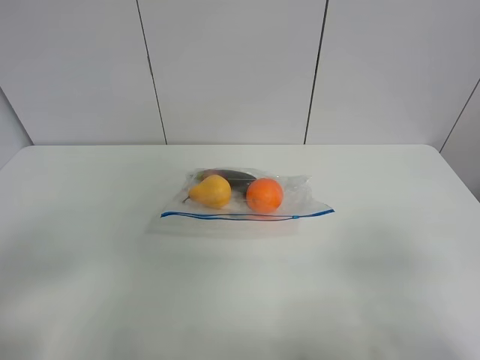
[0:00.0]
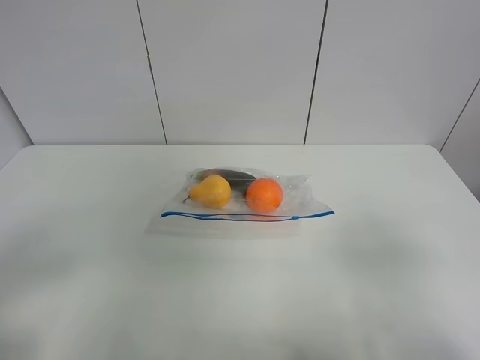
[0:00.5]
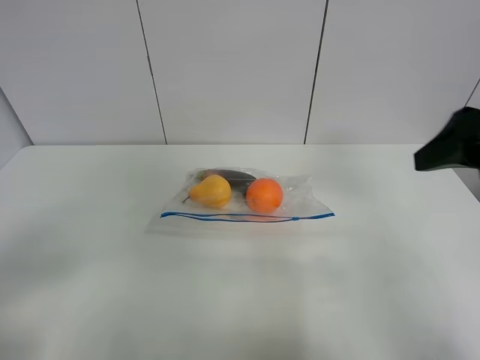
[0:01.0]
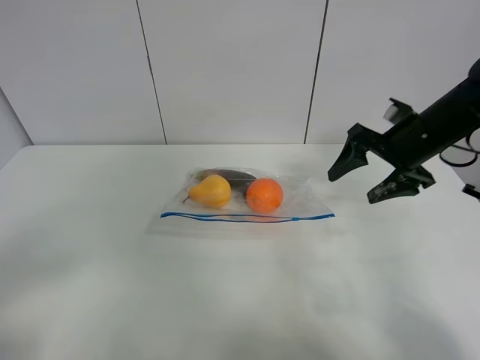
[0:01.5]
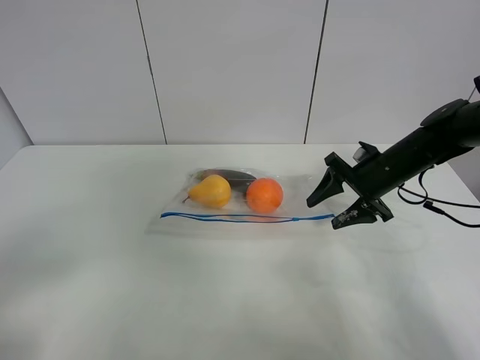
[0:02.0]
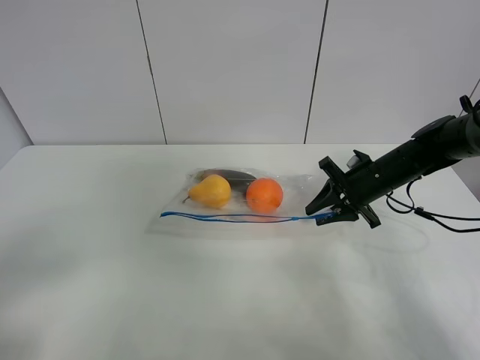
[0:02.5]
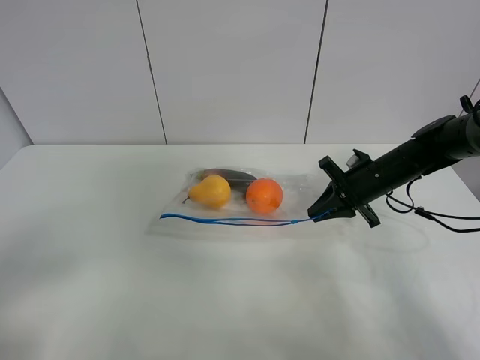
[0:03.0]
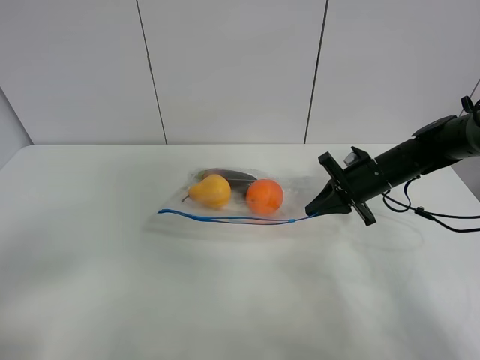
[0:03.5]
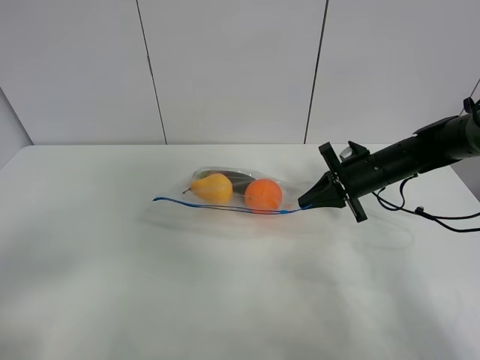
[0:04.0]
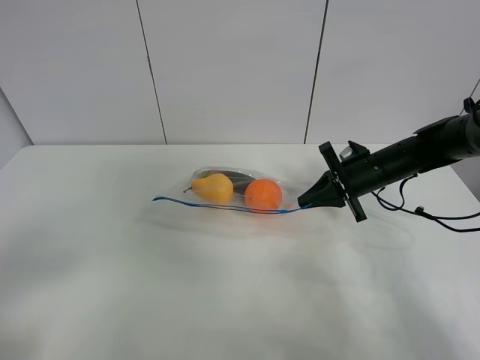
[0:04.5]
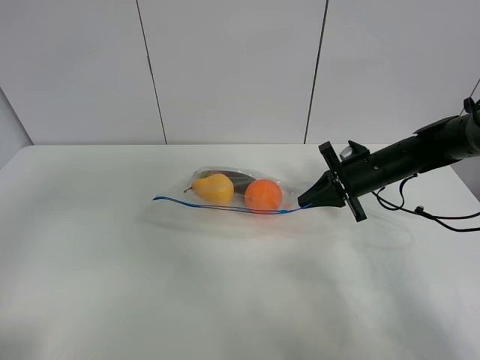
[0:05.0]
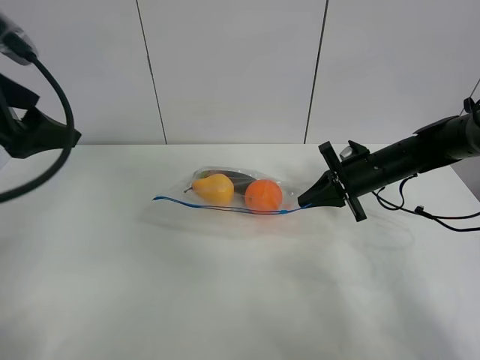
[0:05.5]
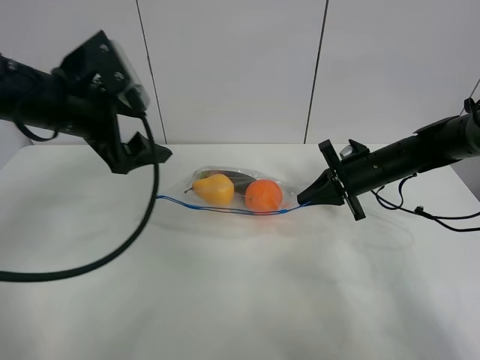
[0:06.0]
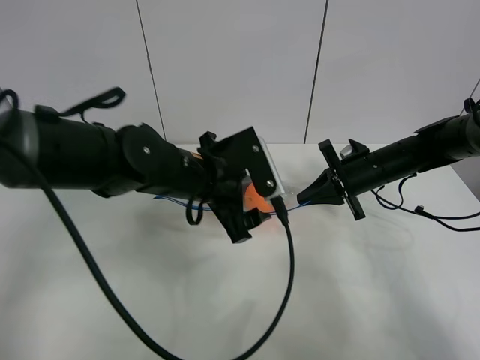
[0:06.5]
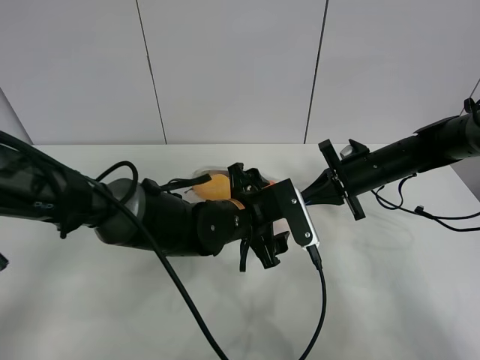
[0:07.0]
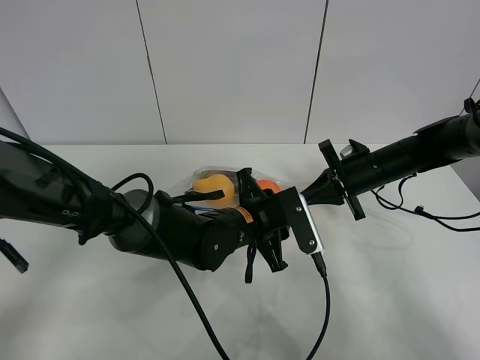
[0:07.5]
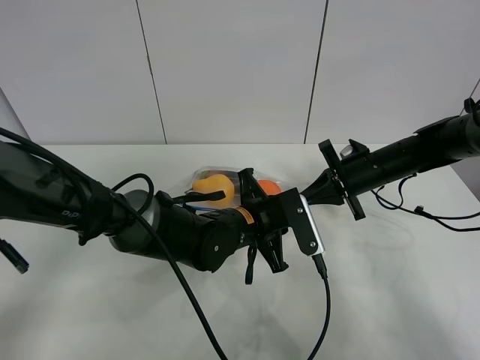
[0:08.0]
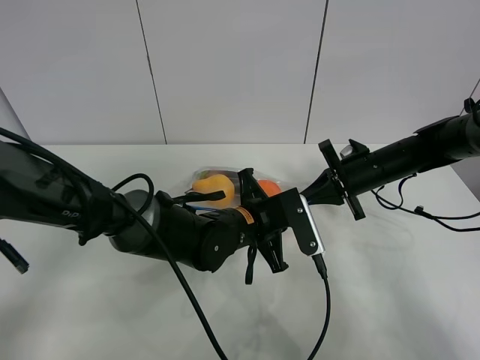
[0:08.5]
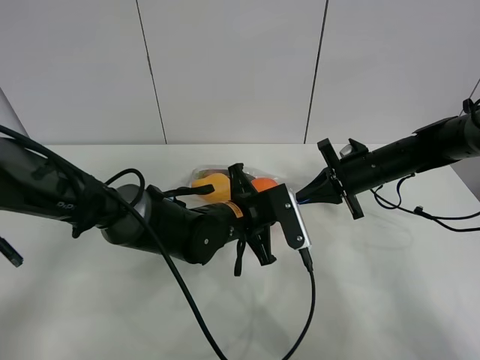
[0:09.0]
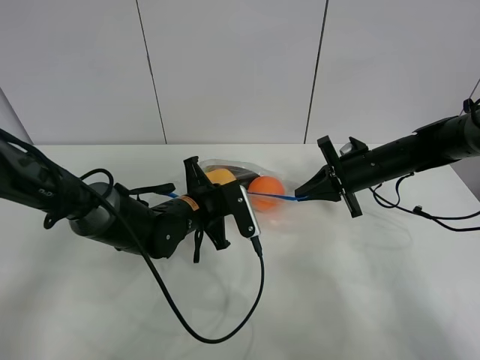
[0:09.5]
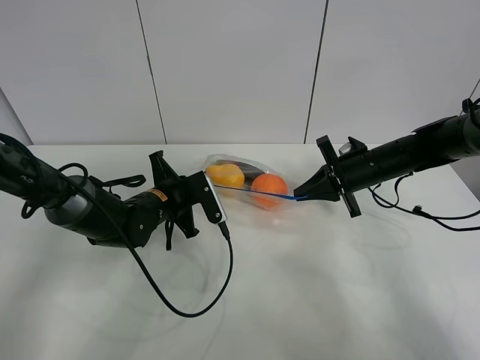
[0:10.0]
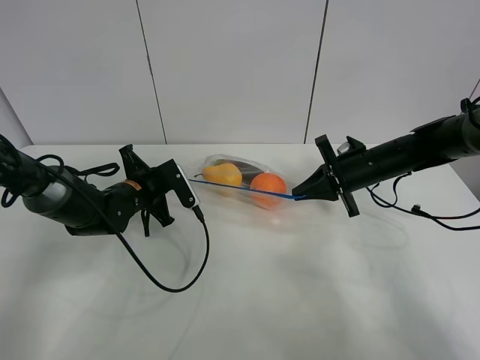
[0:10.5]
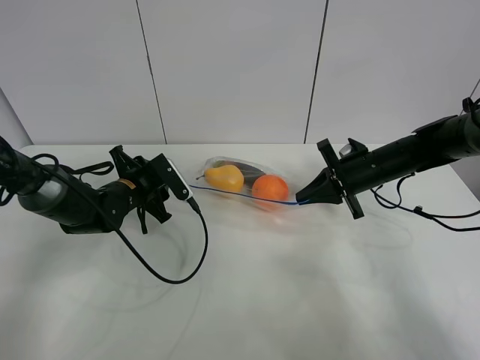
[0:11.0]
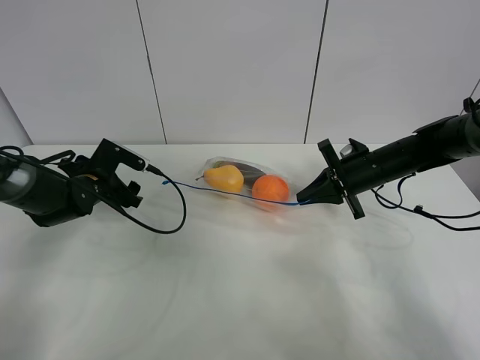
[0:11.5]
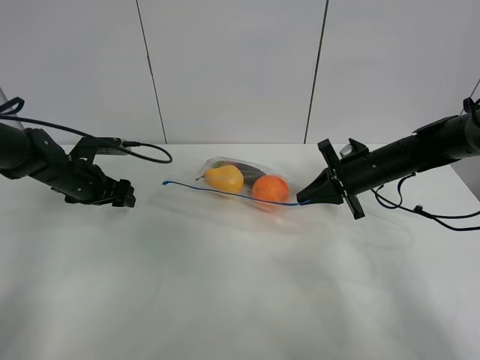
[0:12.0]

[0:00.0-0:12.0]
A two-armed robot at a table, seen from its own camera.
Step, 0:00.0 to 0:03.0: Grasp the fruit bag with right gripper.
Step, 0:03.5 to 0:04.0: Lift the fruit bag with your right gripper.
Step, 0:04.5 to 0:10.5: Pull the fruit bag with left gripper.
0:00.0 to 0:02.0: The right gripper goes some 35 cm forward.
0:02.0 to 0:04.0: The right gripper closes.
0:04.0 to 0:06.0: The left gripper travels forward by some 30 cm.
0:06.0 to 0:08.0: The left gripper heads to the right and downward, covering approximately 25 cm, and closes.
0:08.0 to 0:10.0: The left gripper moves to the left and forward, about 15 cm.
0:10.0 to 0:12.0: The left gripper is displaced to the left by approximately 15 cm, and opens its fingers.

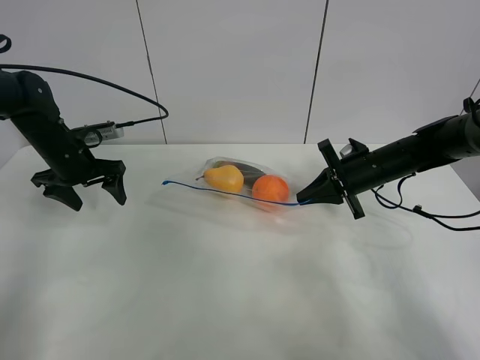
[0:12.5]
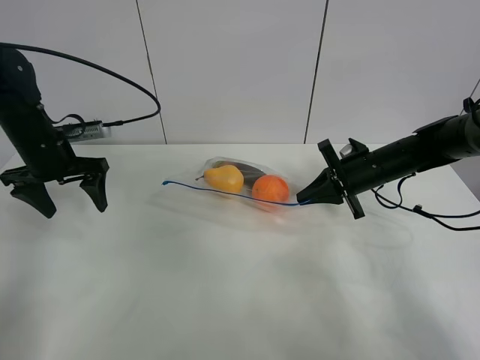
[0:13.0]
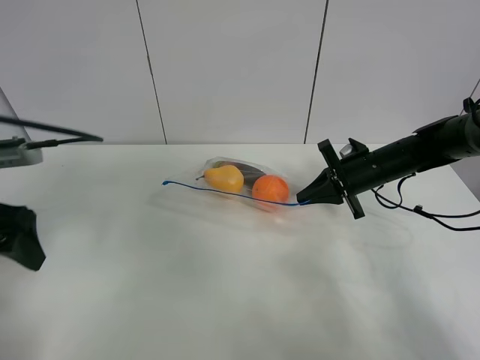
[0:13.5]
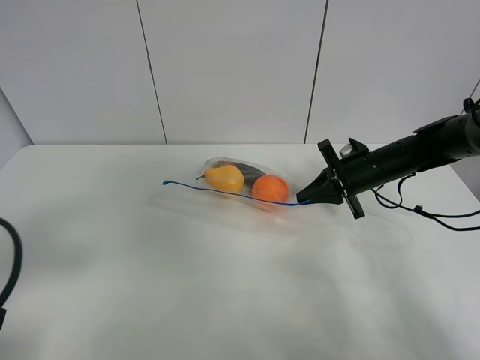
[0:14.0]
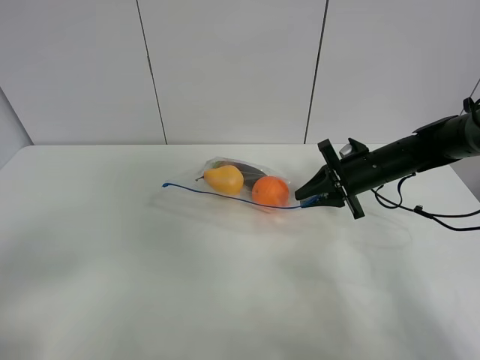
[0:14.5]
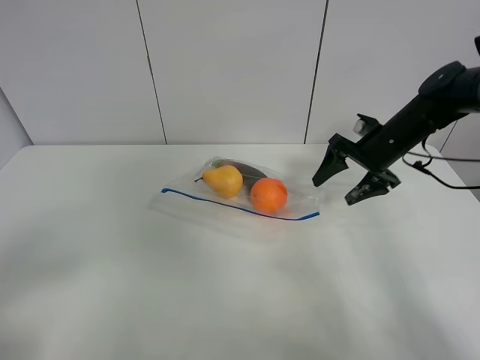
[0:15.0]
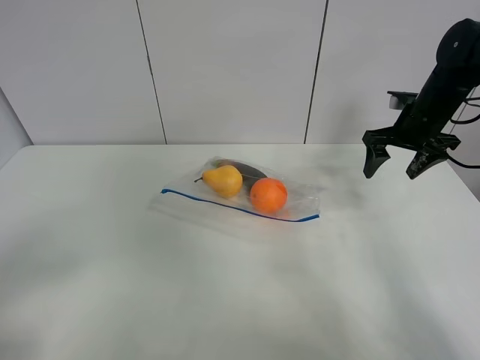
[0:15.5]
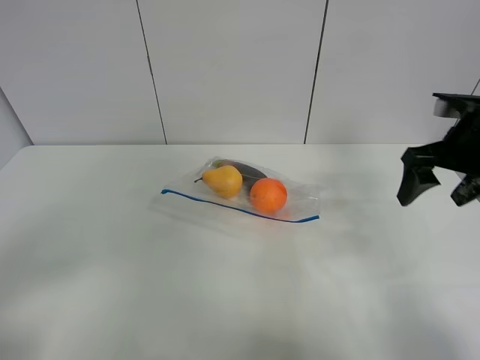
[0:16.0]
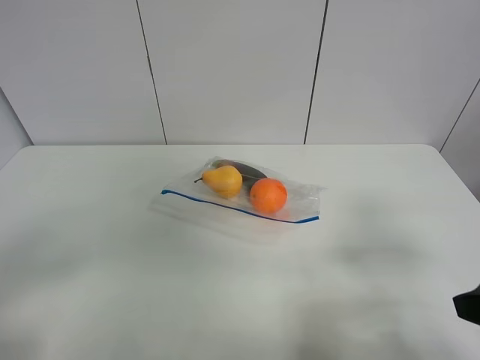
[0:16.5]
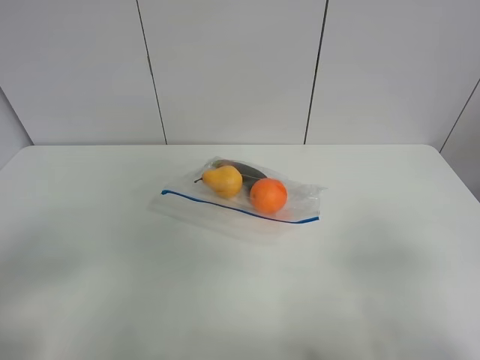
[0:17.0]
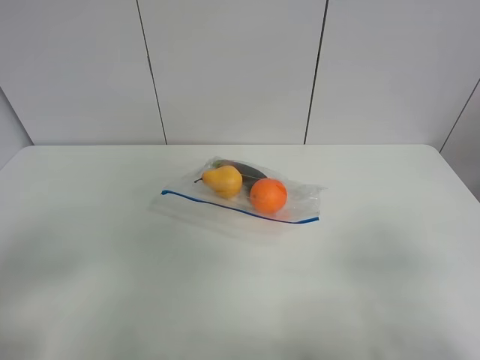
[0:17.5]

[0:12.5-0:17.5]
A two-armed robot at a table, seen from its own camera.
0:12.5 to 0:15.0: The right gripper shifts roughly 5 cm upward, and opens. Meanwhile the left gripper shifts some 40 cm backward.
0:15.0 to 0:17.5: The right gripper travels backward by some 40 cm.

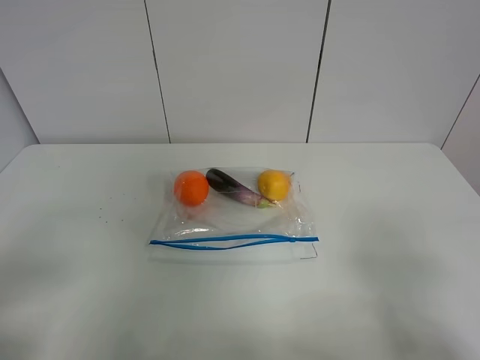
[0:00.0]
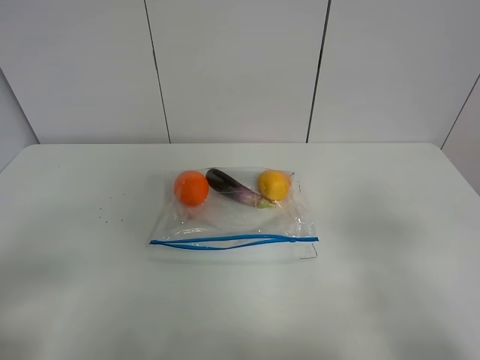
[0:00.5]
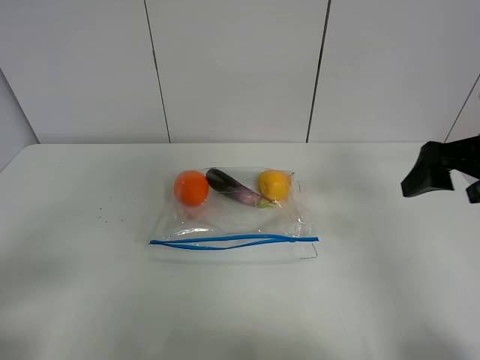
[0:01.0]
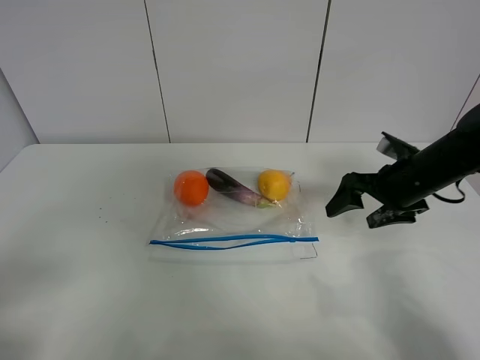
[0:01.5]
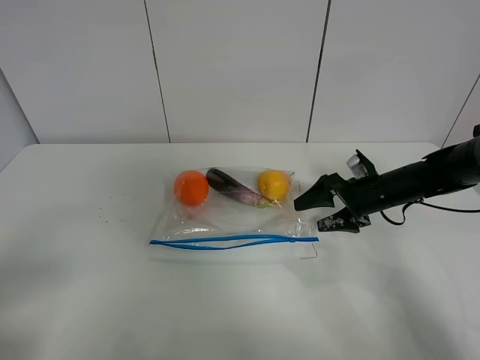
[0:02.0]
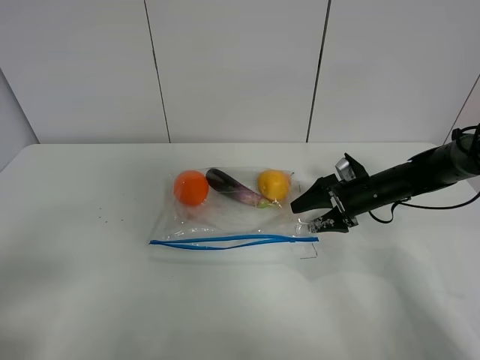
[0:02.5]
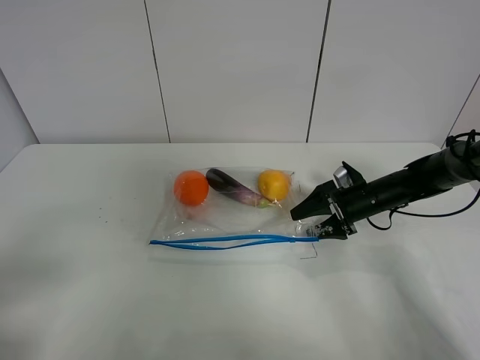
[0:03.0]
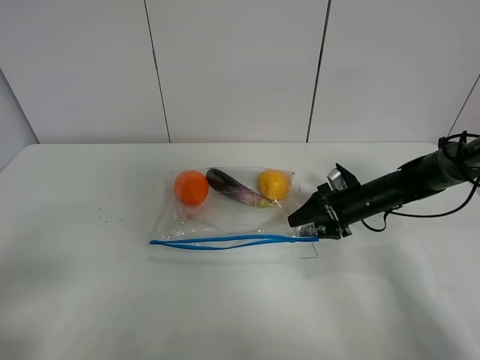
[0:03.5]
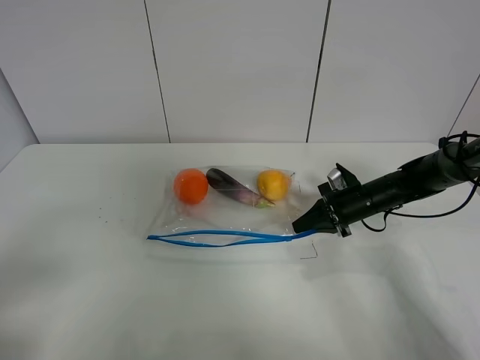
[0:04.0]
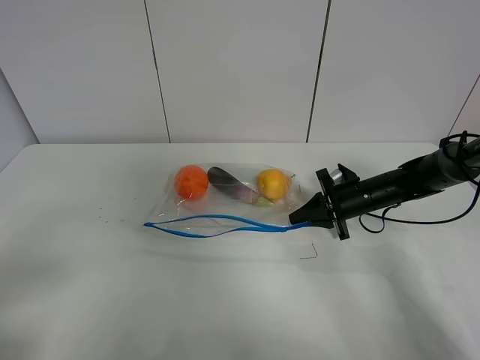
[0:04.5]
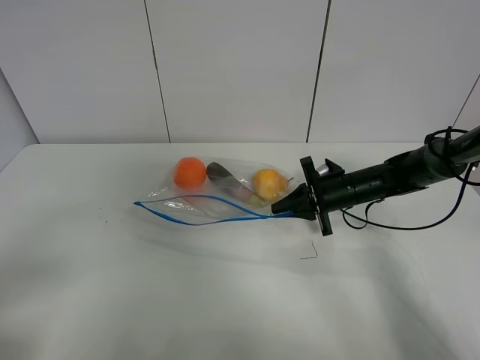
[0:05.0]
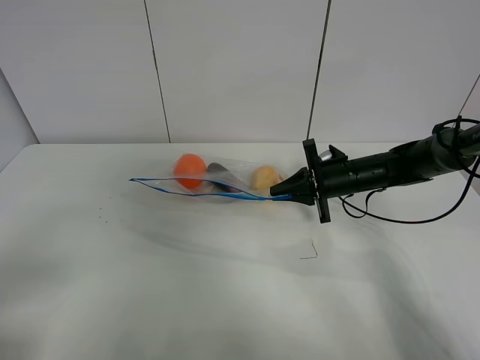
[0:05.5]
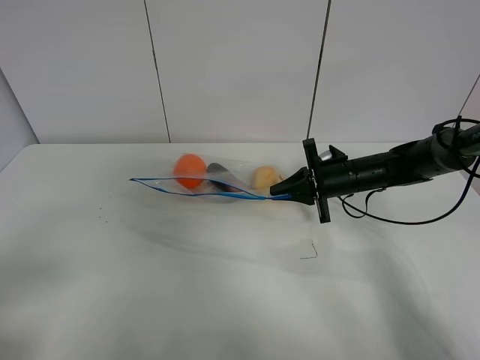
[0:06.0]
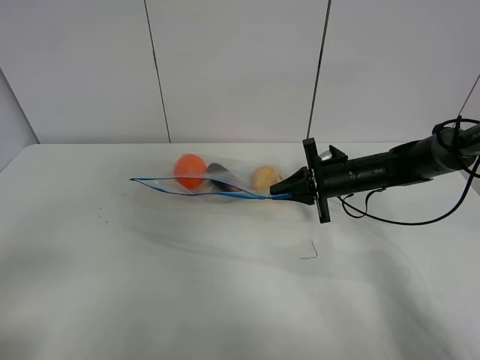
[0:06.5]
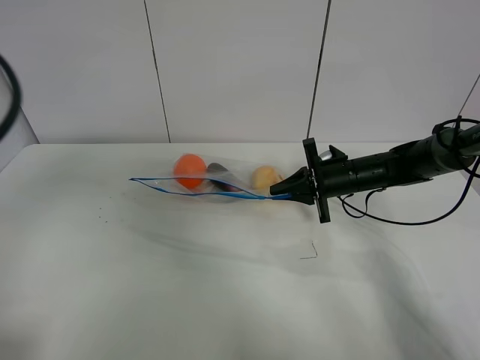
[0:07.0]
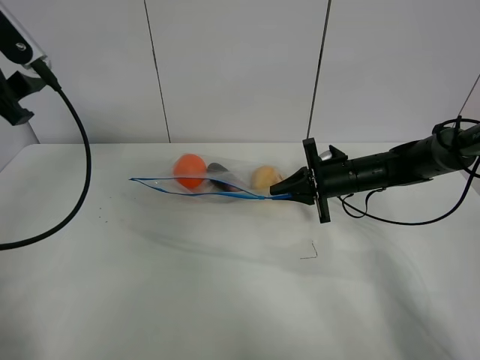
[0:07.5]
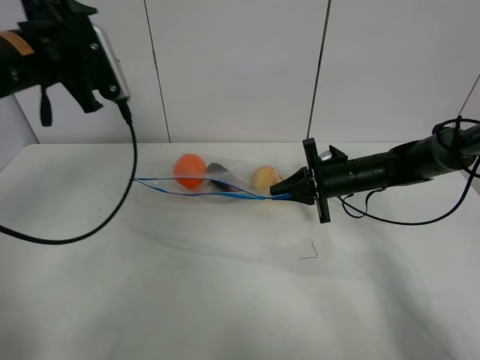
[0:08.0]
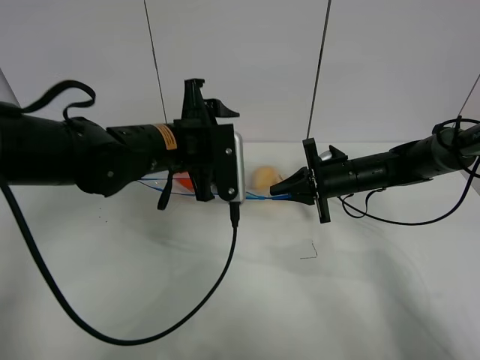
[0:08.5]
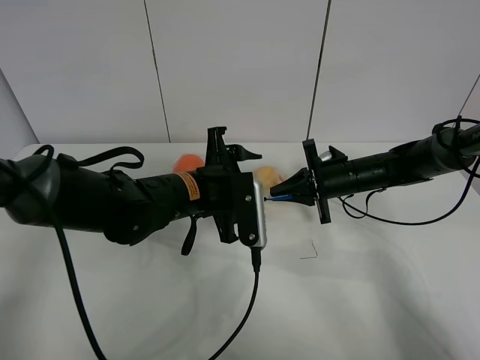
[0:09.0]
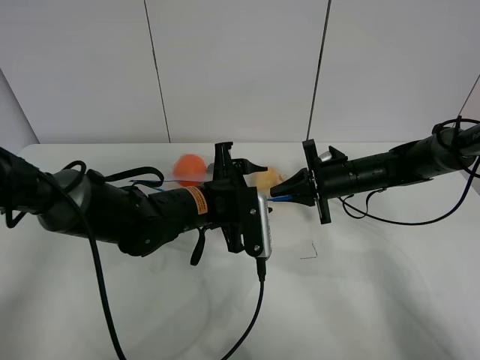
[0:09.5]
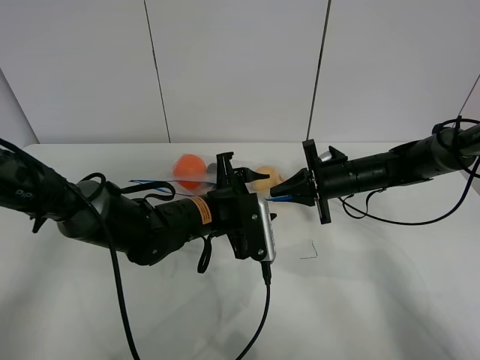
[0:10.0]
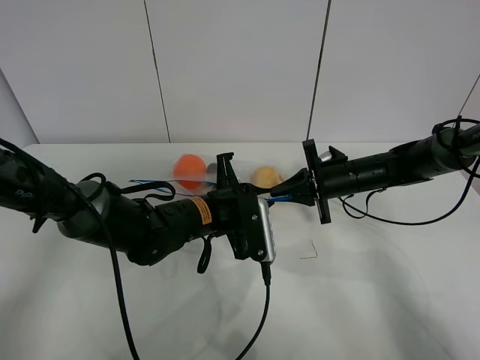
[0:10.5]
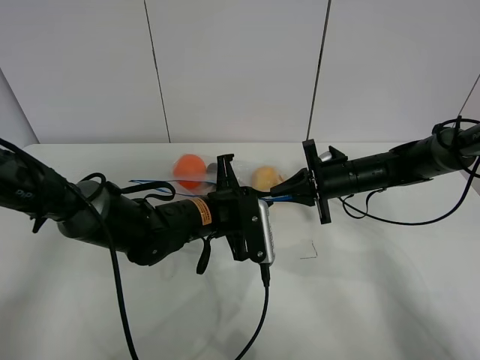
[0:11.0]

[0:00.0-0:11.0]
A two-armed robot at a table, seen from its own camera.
Step, 0:00.0 to 0:04.0: Grasp the fruit bag with right gripper.
Step, 0:04.5 to 0:05.5: Lift the fruit bag with your right gripper.
0:00.0 to 0:02.0: The right gripper shifts roughly 40 cm forward and downward.
0:02.0 to 0:03.5: The right gripper closes up.
0:03.5 to 0:05.5: The right gripper moves about 5 cm, and closes.
0:05.5 to 0:07.5: The left gripper heads forward, covering about 30 cm.
0:07.5 to 0:09.0: The left gripper heads to the right and downward, covering approximately 30 cm.
0:09.0 to 0:11.0: The left gripper closes.
